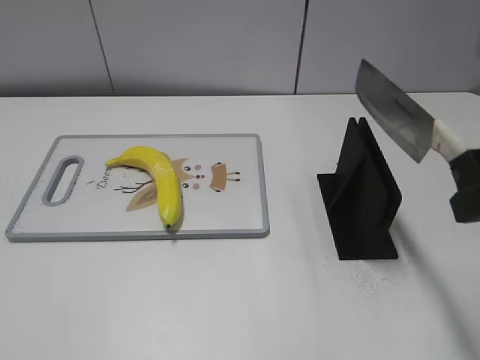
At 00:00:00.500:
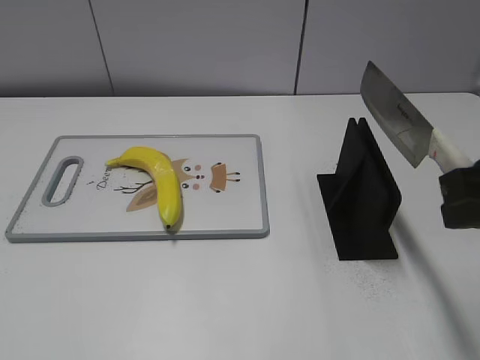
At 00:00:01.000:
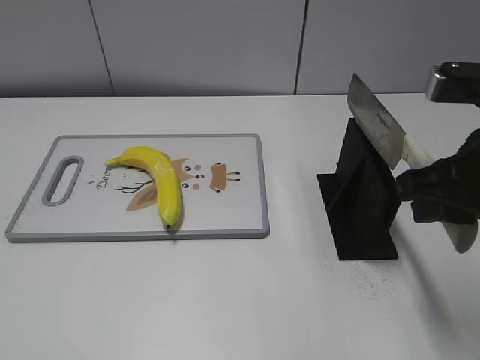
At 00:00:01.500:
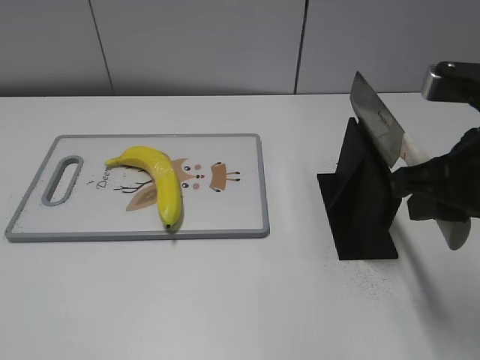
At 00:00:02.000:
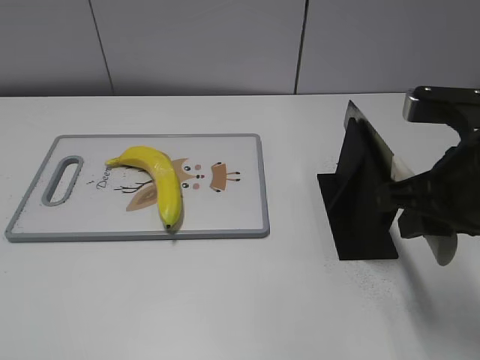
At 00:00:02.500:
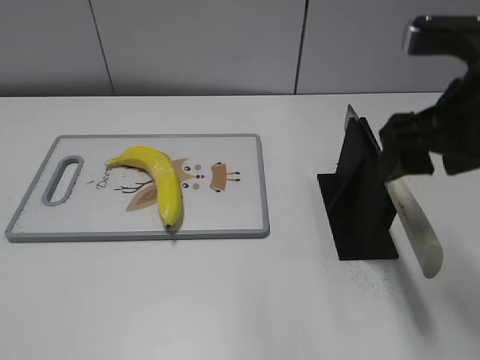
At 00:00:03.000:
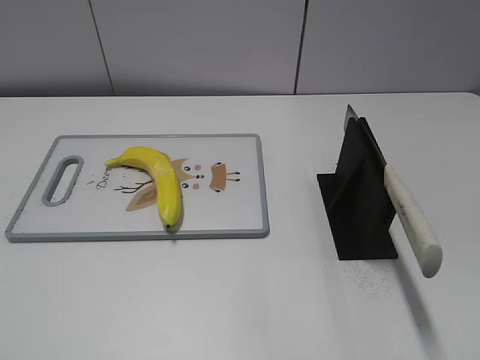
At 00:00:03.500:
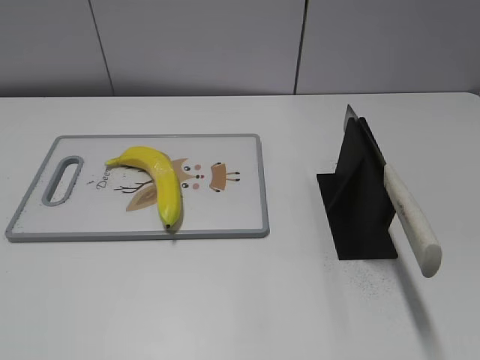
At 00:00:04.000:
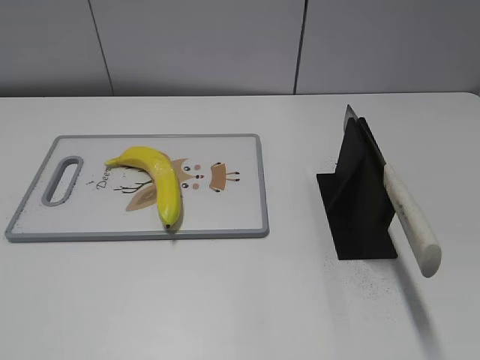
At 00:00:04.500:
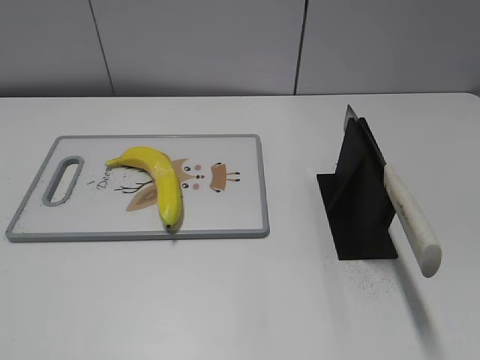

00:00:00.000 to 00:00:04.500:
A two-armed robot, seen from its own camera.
Task of the whole recording: cut plastic banana.
Step, 00:00:00.500 to 00:00:04.500: Place the knife on the storage rack with your right hand.
00:00:00.000 to 00:00:02.000: The right gripper moves downward, roughly 10 cm.
00:00:02.000 to 00:00:04.500: The right gripper goes roughly 25 cm backward and to the right, and opens up.

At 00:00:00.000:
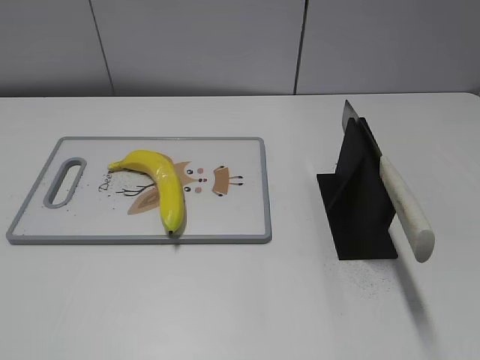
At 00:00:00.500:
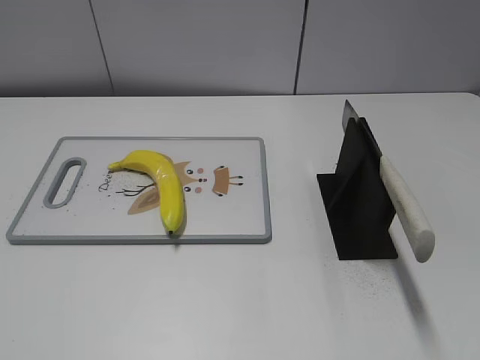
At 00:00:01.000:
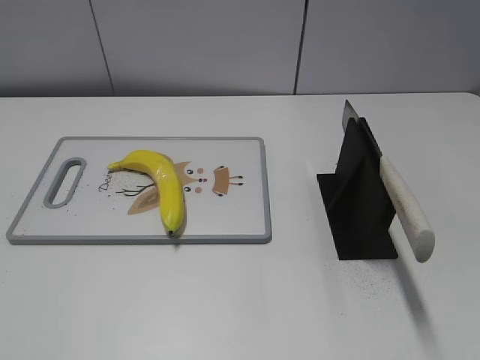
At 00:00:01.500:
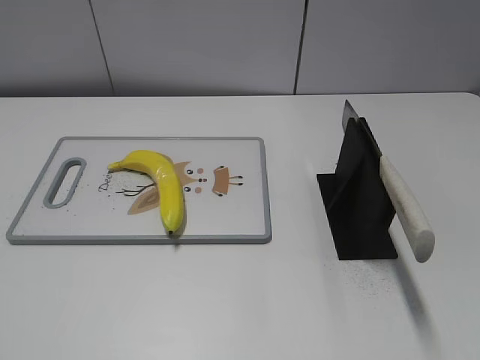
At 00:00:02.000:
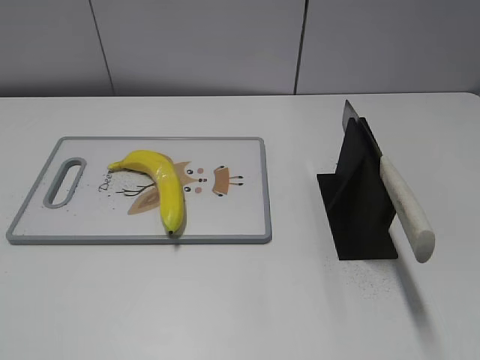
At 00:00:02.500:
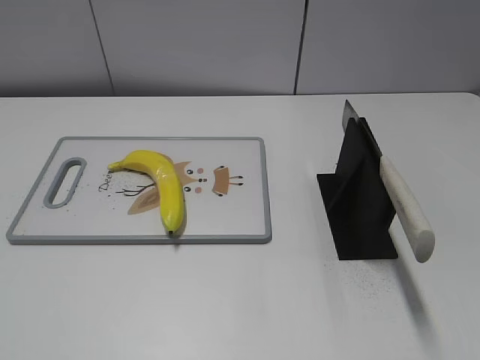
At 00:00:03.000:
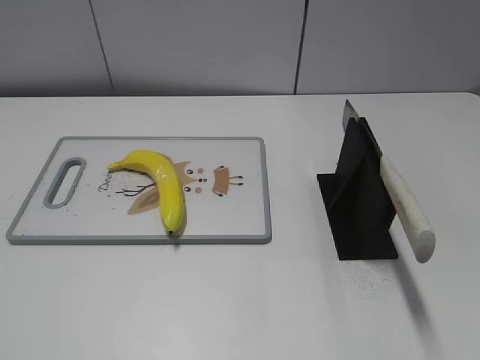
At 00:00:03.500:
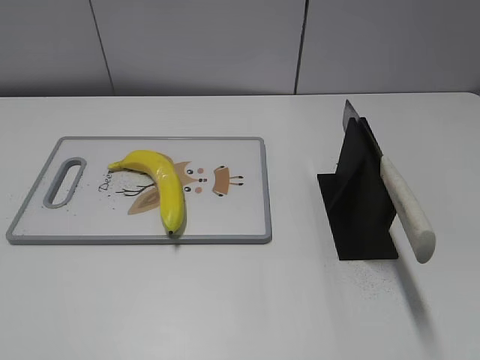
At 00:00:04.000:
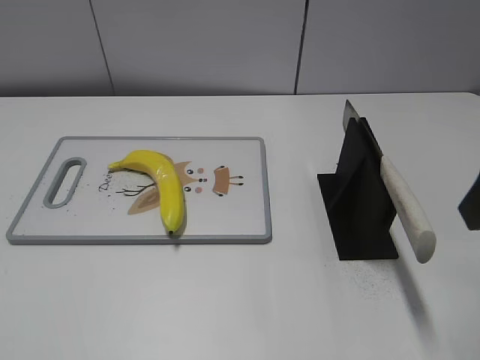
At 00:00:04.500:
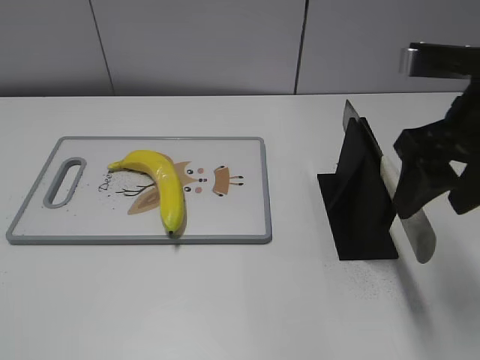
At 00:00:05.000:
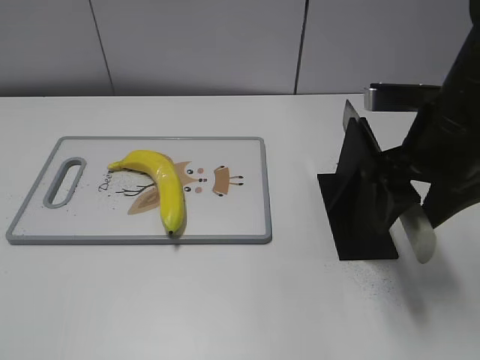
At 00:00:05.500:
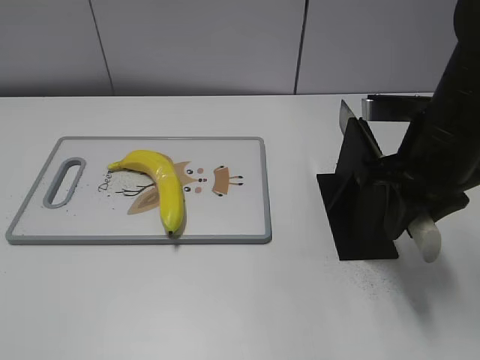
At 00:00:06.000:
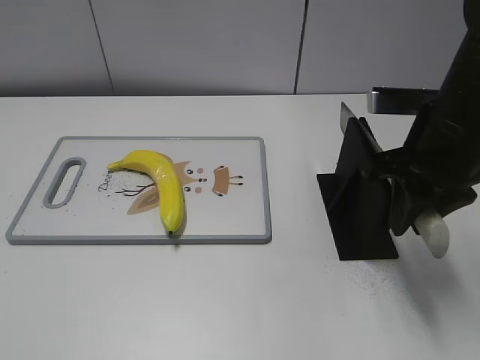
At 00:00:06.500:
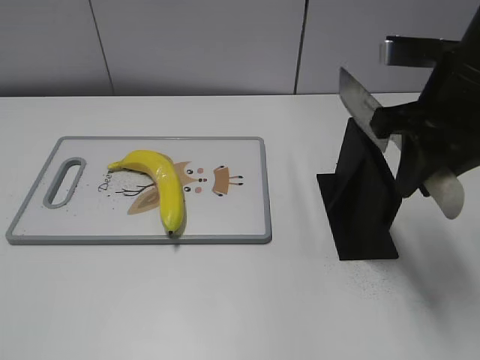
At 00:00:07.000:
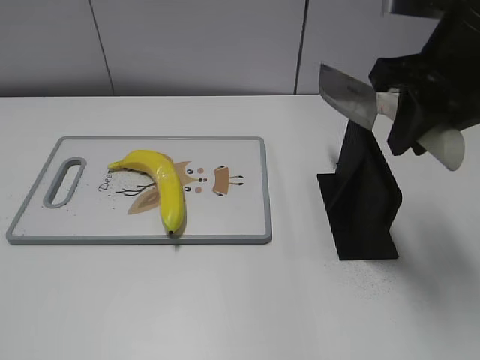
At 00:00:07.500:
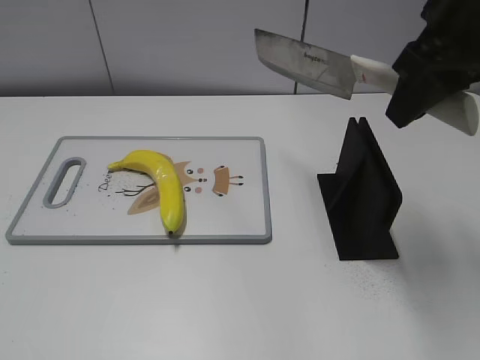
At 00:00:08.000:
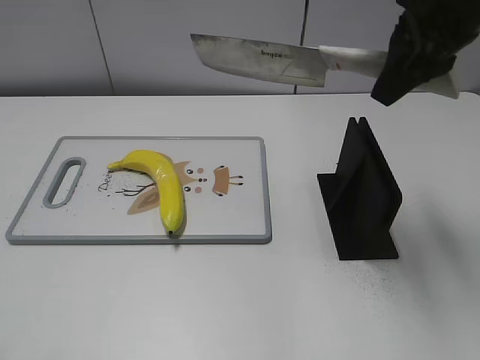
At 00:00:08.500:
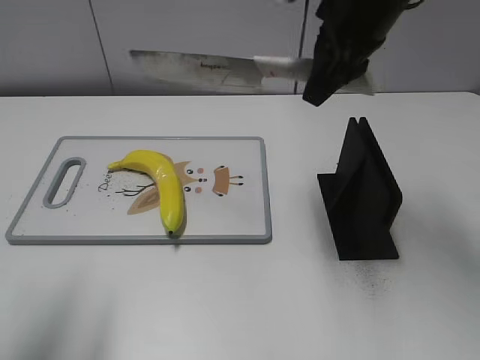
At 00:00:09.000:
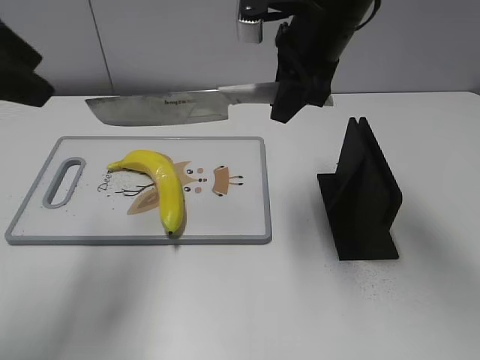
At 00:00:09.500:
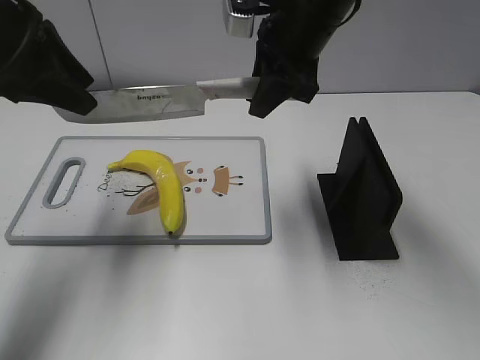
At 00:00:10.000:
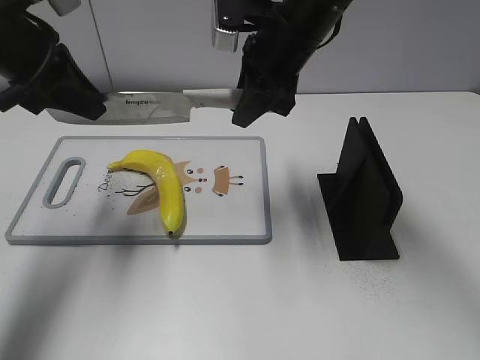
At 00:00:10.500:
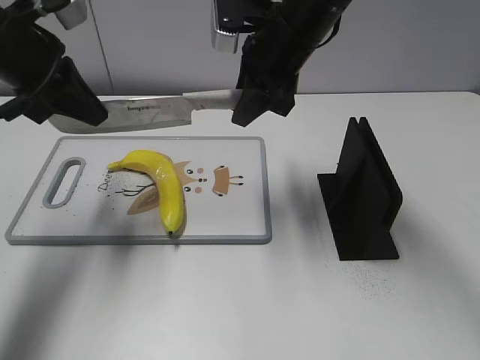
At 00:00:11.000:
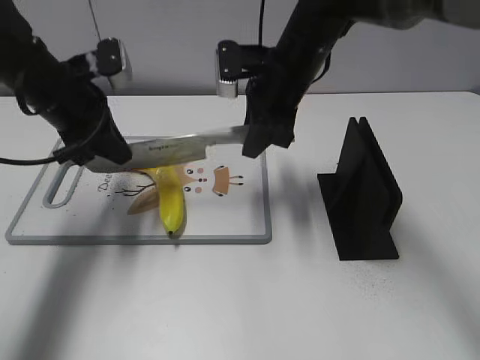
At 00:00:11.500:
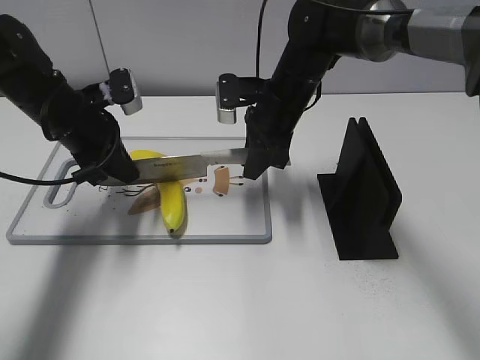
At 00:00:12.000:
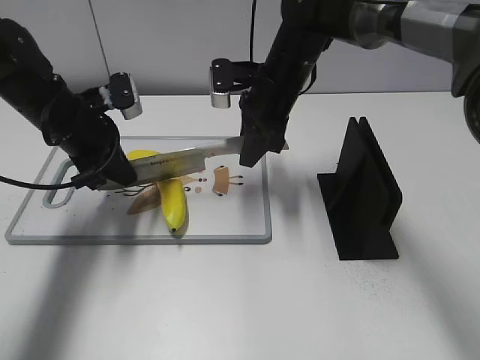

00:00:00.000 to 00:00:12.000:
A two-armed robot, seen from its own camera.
Task of the whole recording: cut plastic banana.
Step, 00:00:00.000 to 00:00:06.500: Grab the knife handle with your right hand.
00:00:04.000 to 00:00:06.000: The right gripper travels forward and downward by some 10 cm, and closes.
00:00:06.000 to 00:00:08.000: The right gripper moves upward, roughly 10 cm, while the left gripper shifts by roughly 5 cm.
00:00:08.000 to 00:00:10.000: The left gripper moves forward, about 30 cm, and closes up. The right gripper moves to the left, downward and forward, approximately 15 cm.
00:00:10.000 to 00:00:12.000: The right gripper moves downward, approximately 10 cm; the left gripper goes approximately 10 cm downward.

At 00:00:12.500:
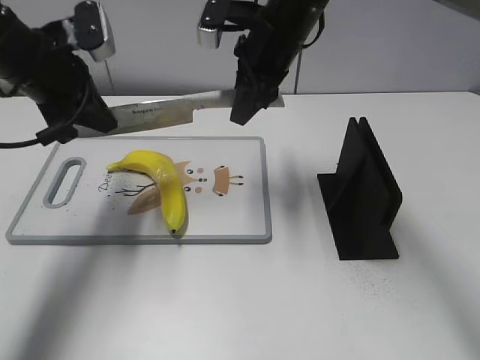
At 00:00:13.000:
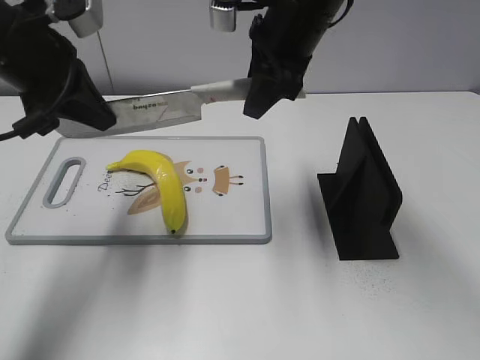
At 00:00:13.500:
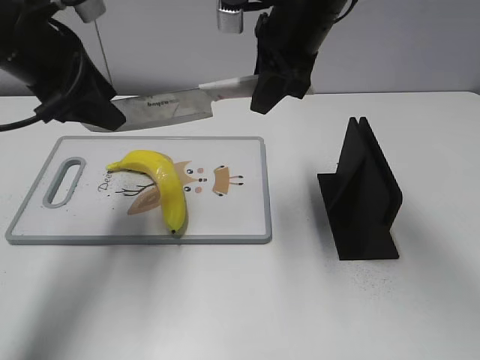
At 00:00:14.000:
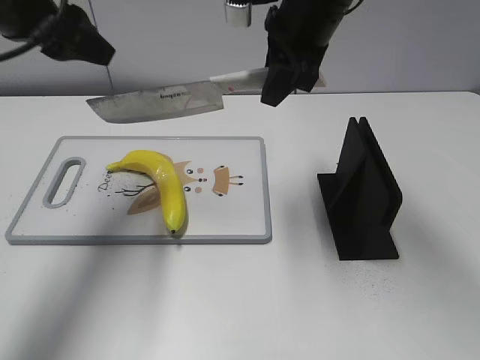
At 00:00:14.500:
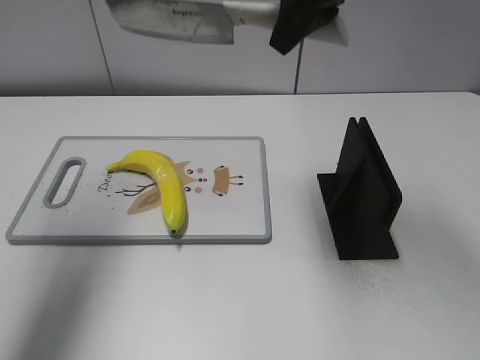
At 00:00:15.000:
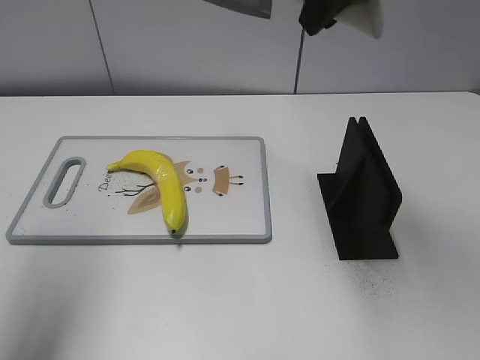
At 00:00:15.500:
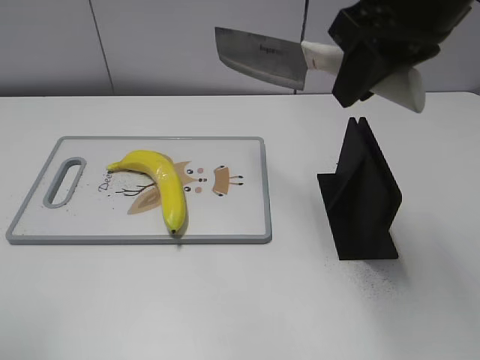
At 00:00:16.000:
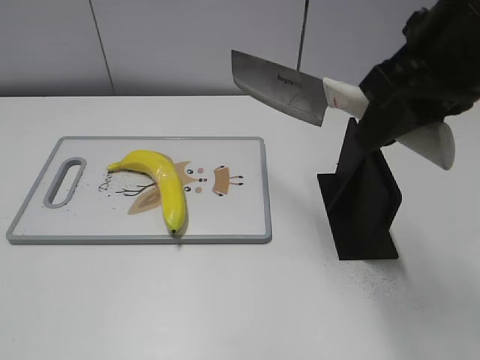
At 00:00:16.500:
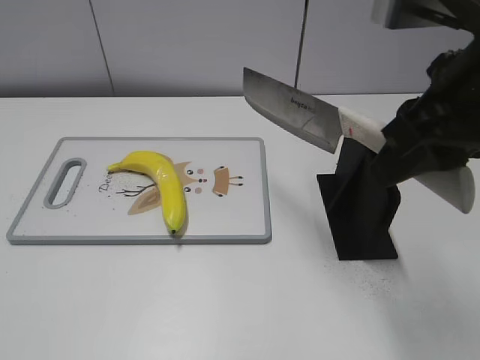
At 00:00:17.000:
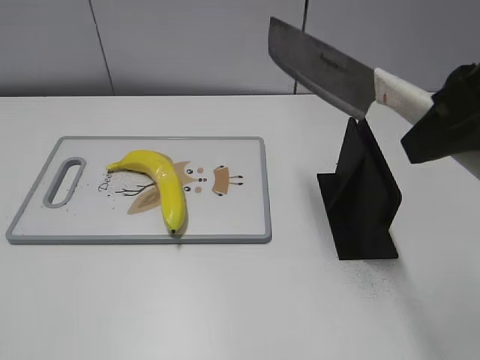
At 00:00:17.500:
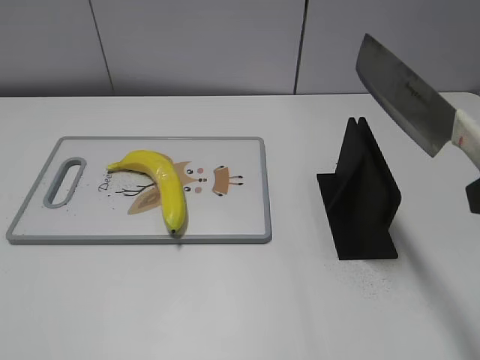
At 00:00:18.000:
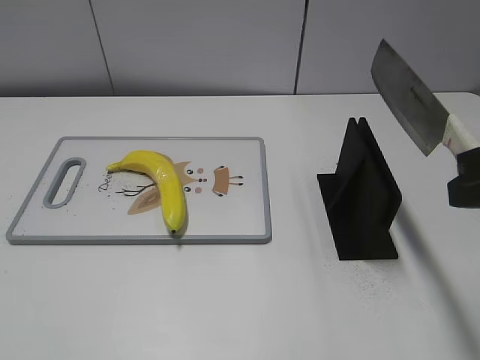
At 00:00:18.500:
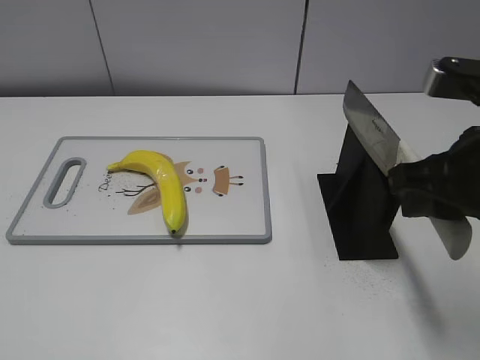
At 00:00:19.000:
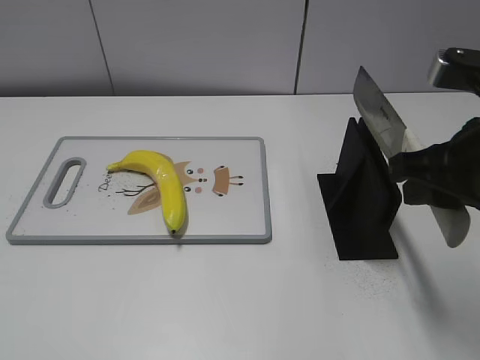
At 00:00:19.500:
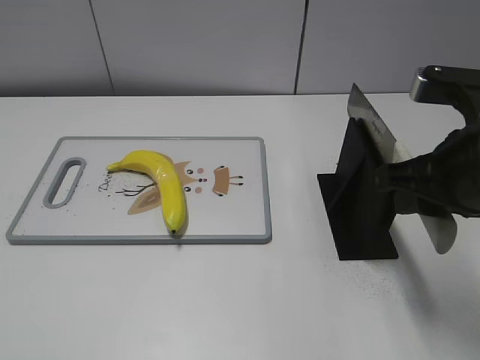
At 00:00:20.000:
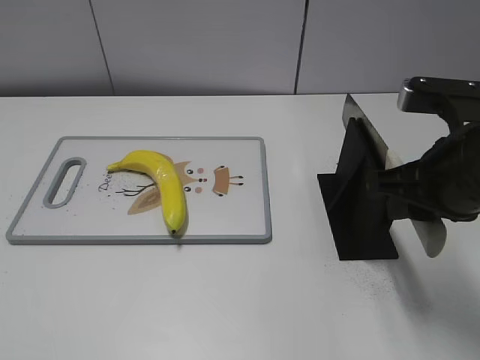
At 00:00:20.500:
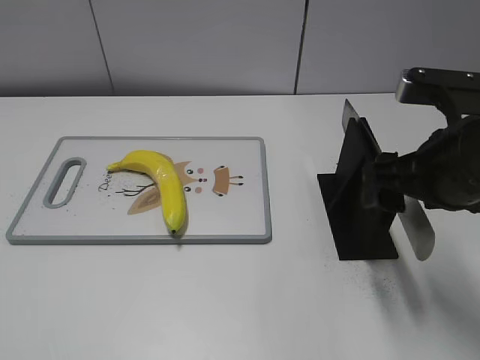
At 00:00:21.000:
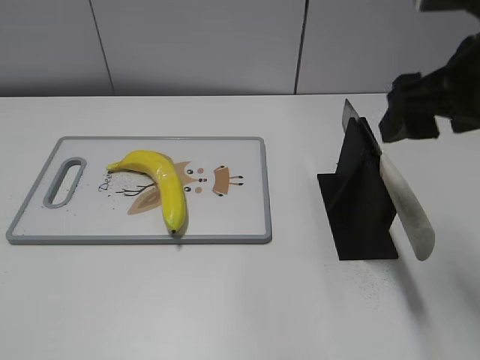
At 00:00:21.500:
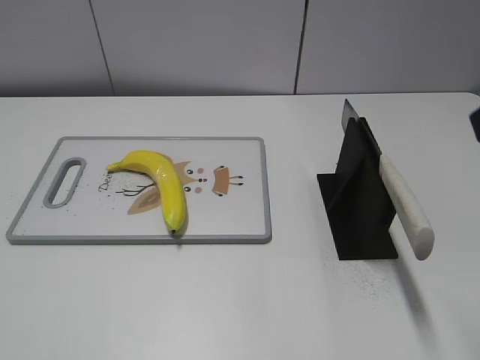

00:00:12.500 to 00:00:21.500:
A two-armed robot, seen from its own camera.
Task of the whole recording: cut plastic banana.
Step, 00:00:13.000 to 00:00:14.000: Cut the banana with your right hand.
Step, 00:00:14.500 to 00:00:16.500: Secure the blade with your left hand.
00:00:12.500 to 00:00:14.500: Both grippers move upward and backward, approximately 15 cm. The left gripper opens.
00:00:14.500 to 00:00:17.000: The left gripper heads backward, covering approximately 30 cm; the right gripper is displaced backward and to the right by some 20 cm.
00:00:17.000 to 00:00:19.500: The right gripper is displaced downward by some 10 cm.
00:00:19.500 to 00:00:21.500: The right gripper shifts some 15 cm upward and backward, and opens its fingers.
